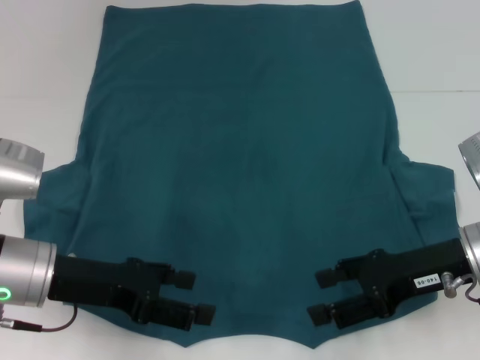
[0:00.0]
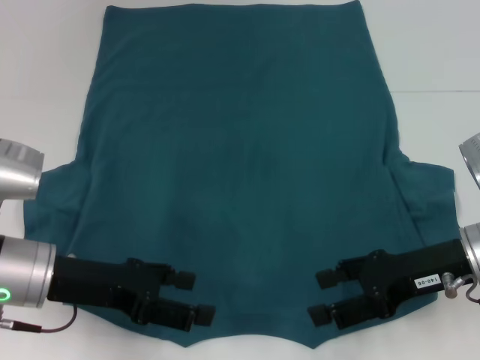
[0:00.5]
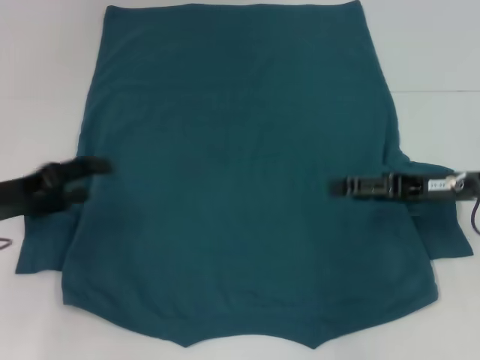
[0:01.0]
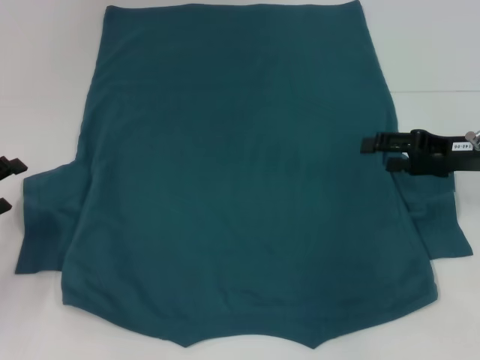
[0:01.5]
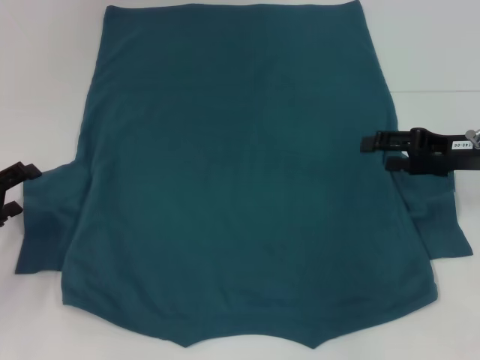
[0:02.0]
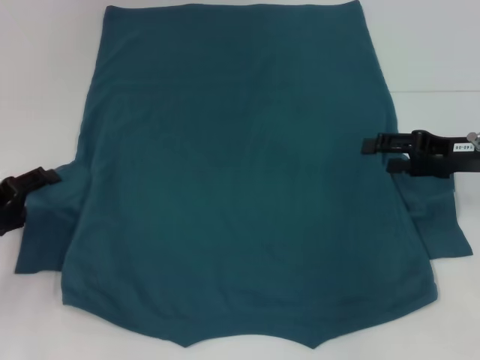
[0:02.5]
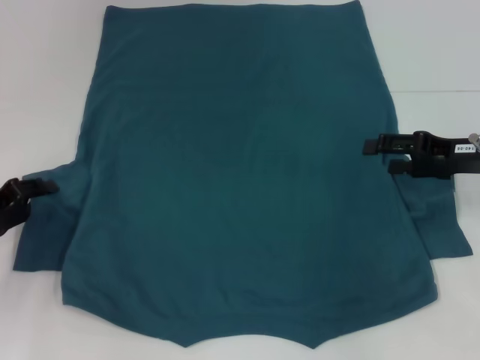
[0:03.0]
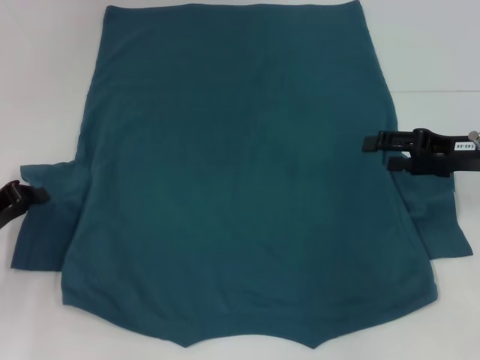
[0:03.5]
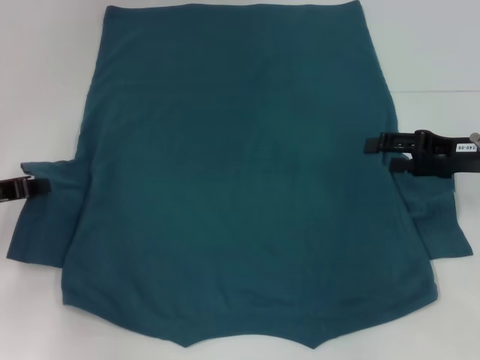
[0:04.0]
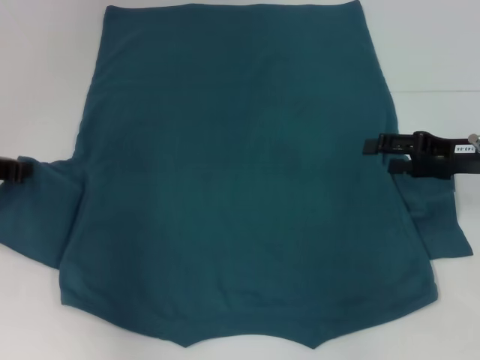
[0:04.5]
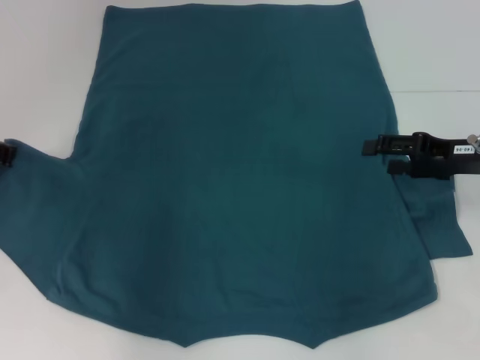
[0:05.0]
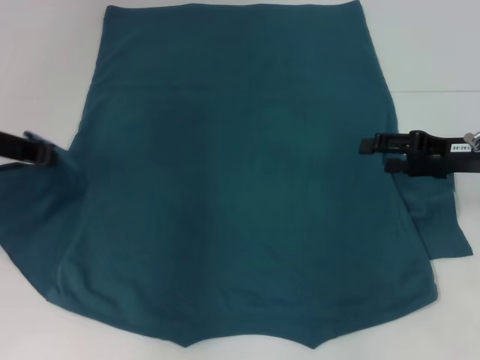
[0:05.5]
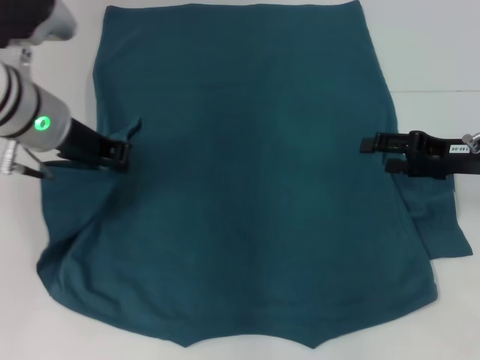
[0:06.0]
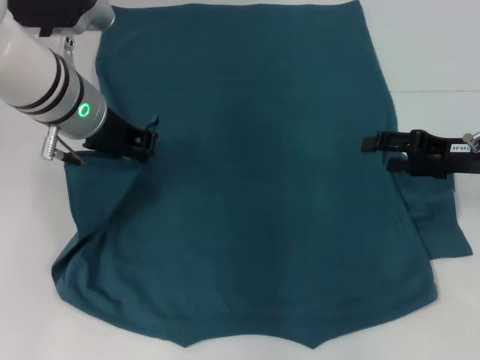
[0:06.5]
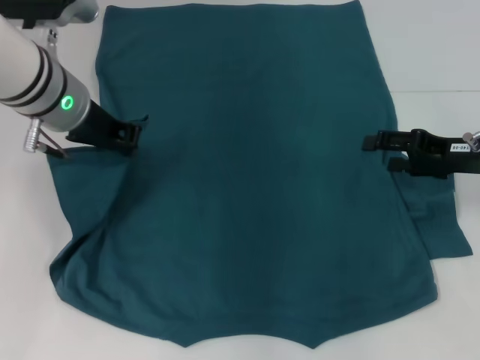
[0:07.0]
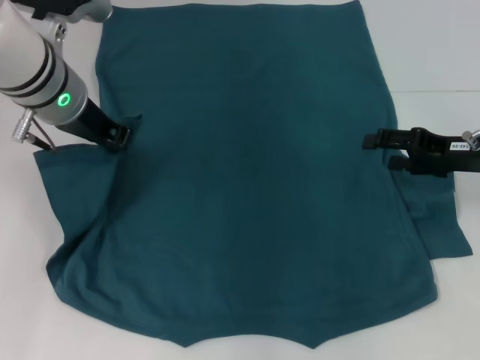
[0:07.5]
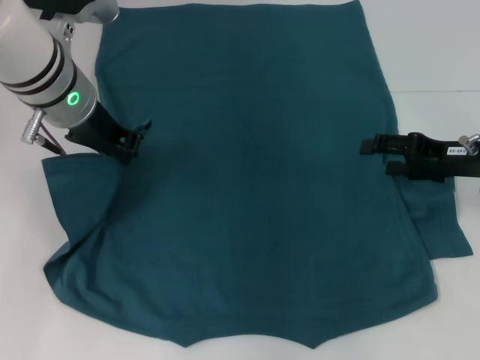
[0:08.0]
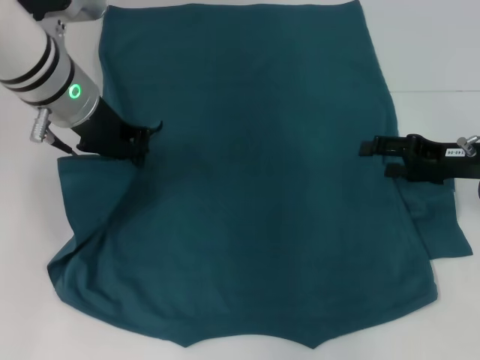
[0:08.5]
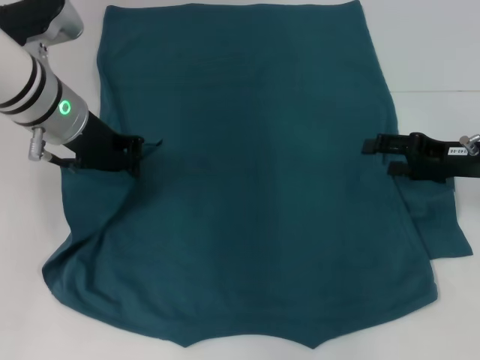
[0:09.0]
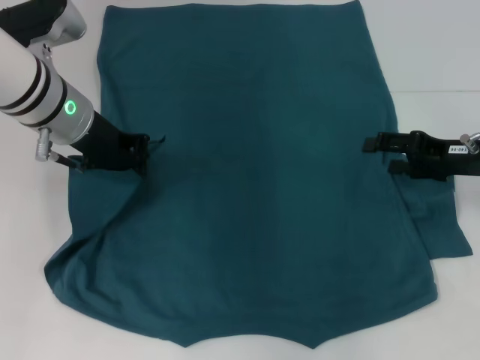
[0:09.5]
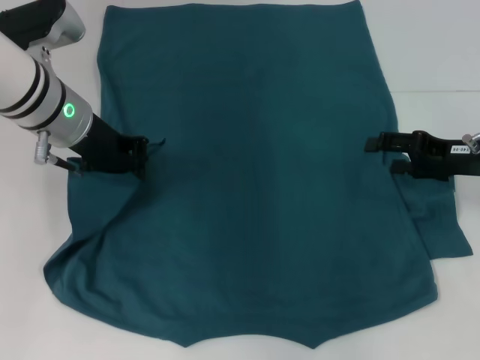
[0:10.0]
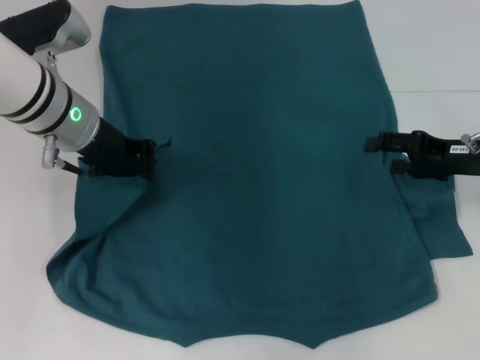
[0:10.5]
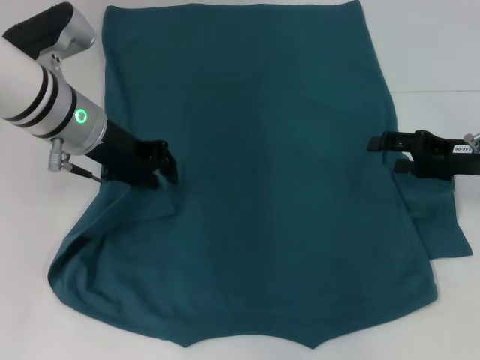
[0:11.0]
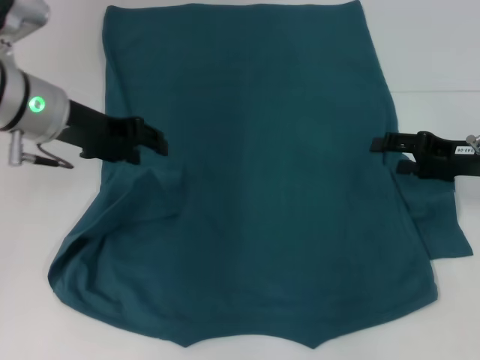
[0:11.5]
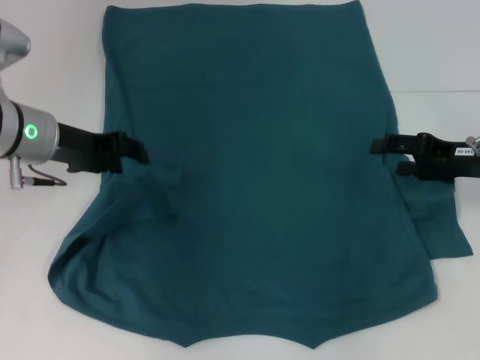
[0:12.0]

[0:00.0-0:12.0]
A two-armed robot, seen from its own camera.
0:00.0 to 0:02.0: The left gripper shifts some 15 cm to the left, while the right gripper is displaced forward and to the right by about 10 cm.
0:02.0 to 0:04.0: The left gripper changes place by some 5 cm, and closes its fingers.
0:04.0 to 0:06.0: The left gripper heads to the right, upward and forward, covering approximately 15 cm.
0:06.0 to 0:08.0: The grippers move only a little.
0:10.0 to 0:12.0: The left gripper moves approximately 5 cm, and opens its fingers.

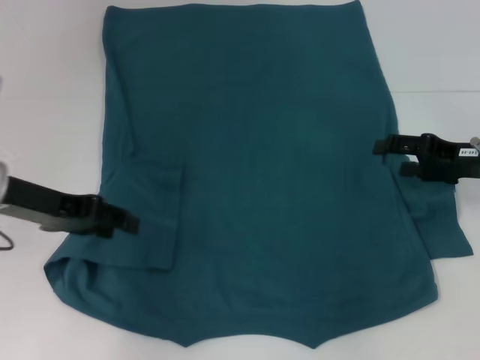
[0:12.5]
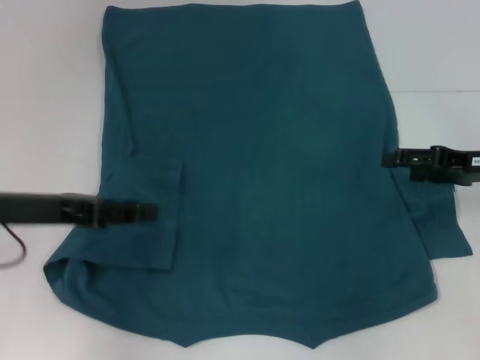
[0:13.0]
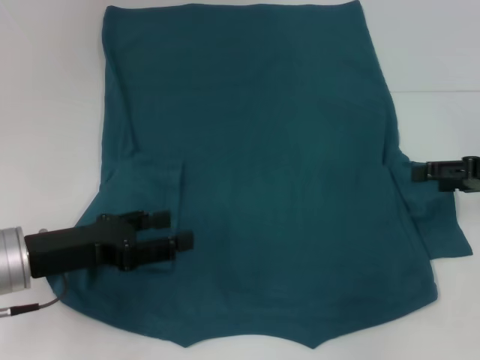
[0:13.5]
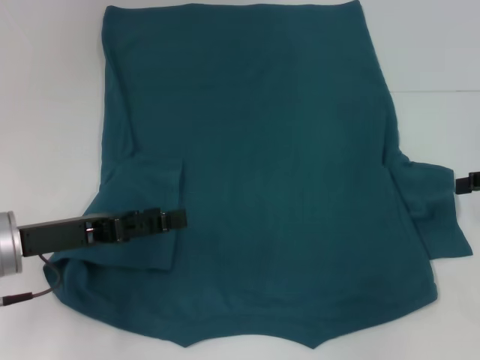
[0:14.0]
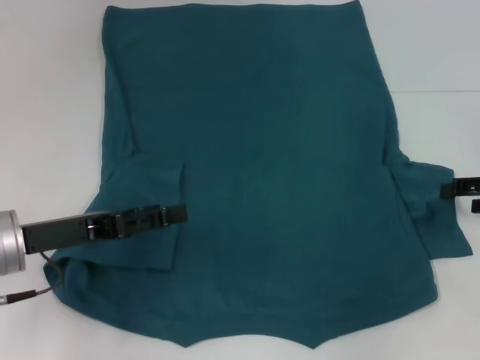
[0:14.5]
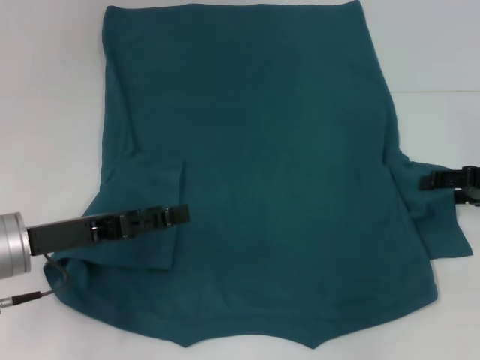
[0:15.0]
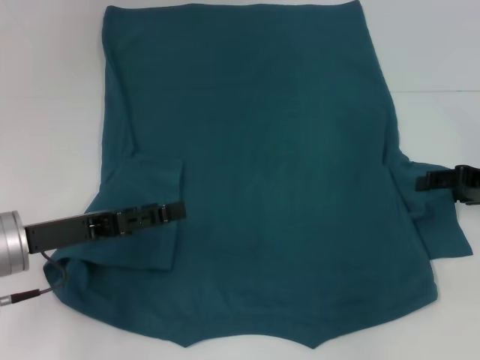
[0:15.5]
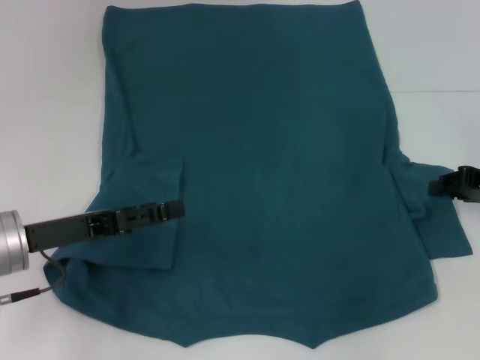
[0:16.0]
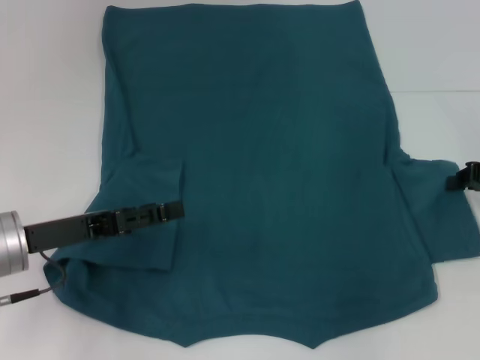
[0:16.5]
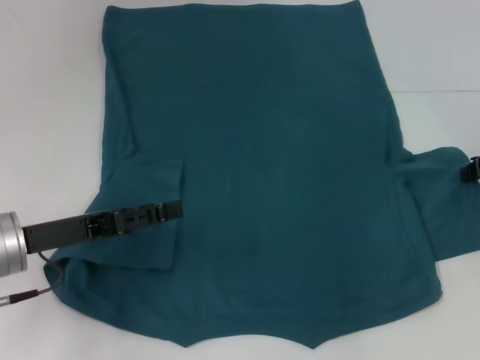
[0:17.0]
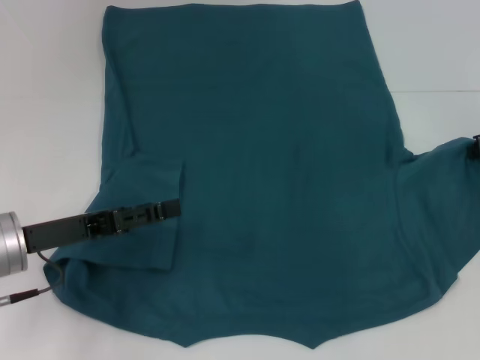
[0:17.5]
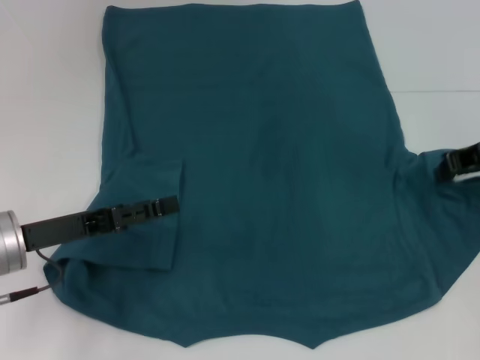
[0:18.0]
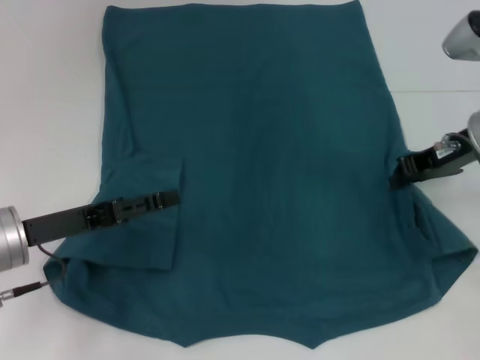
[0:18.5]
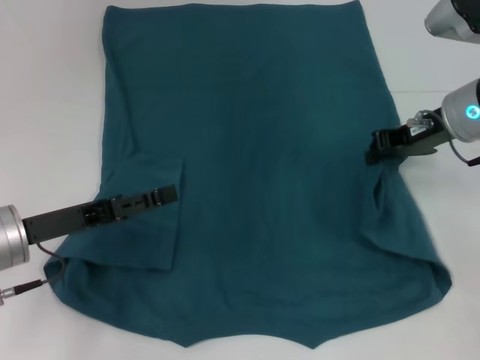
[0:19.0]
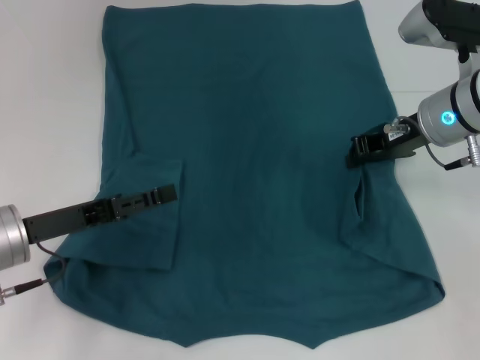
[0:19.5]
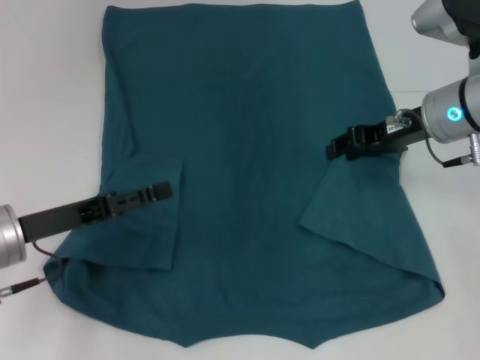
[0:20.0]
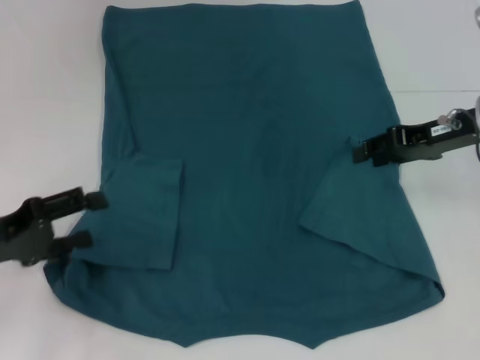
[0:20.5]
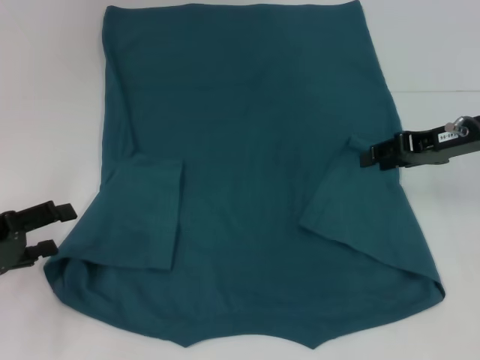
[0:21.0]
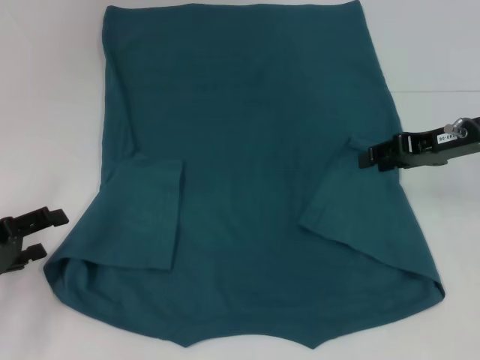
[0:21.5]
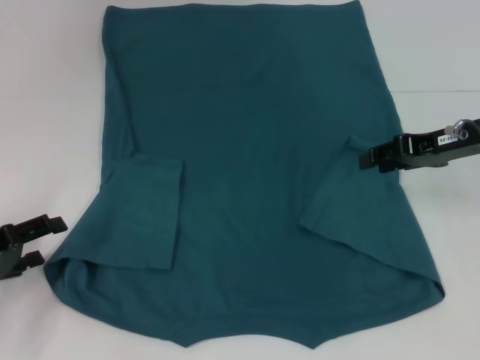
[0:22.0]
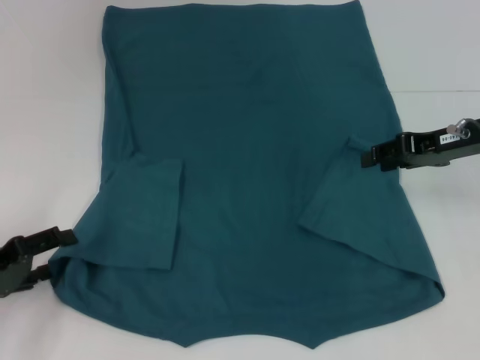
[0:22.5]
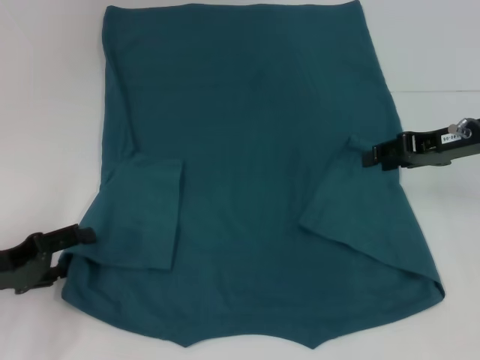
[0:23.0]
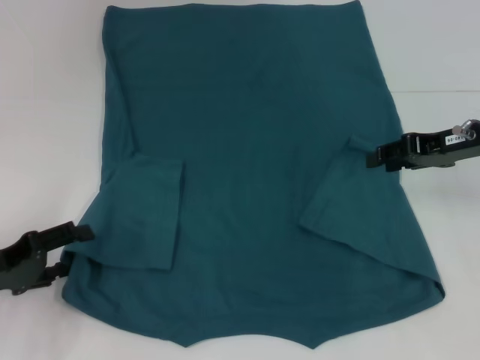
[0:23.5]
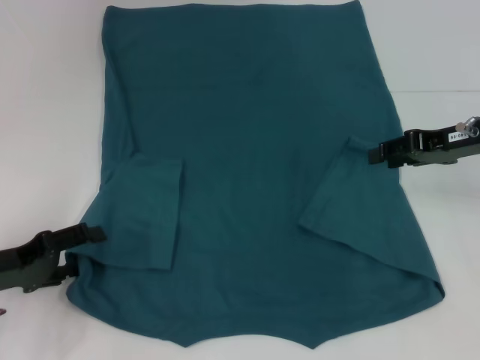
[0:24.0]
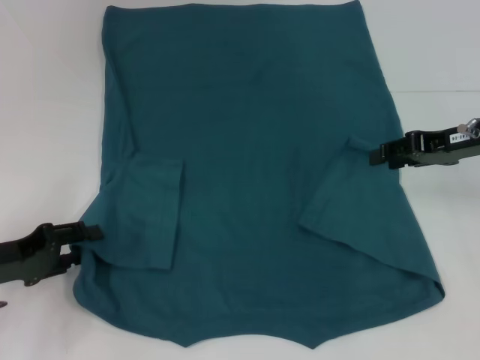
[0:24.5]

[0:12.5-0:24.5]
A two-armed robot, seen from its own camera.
Step, 0:13.0 to 0:20.0: Fold the bottom right sleeve to the right.
0:12.5 to 0:14.5: The right gripper goes approximately 5 cm to the right. The left gripper is displaced downward by approximately 5 cm, and opens up.
0:14.5 to 0:16.5: The right gripper closes.
0:16.5 to 0:18.5: The right gripper is displaced to the left by about 10 cm.
0:18.5 to 0:20.5: The right gripper opens its fingers, while the left gripper travels to the left by approximately 5 cm.
0:20.5 to 0:22.5: The left gripper moves approximately 5 cm.
0:22.5 to 0:24.5: The grippers stay close to where they were, moving slightly.

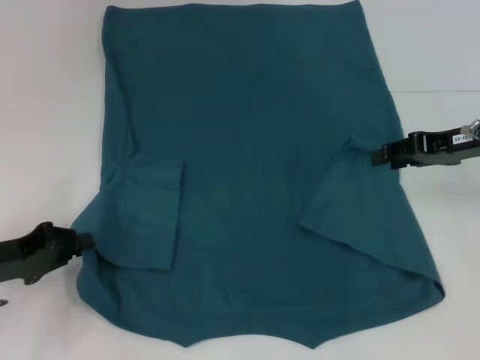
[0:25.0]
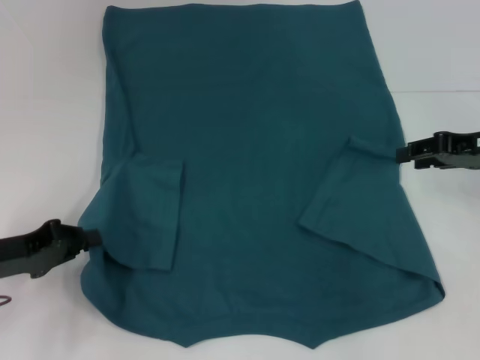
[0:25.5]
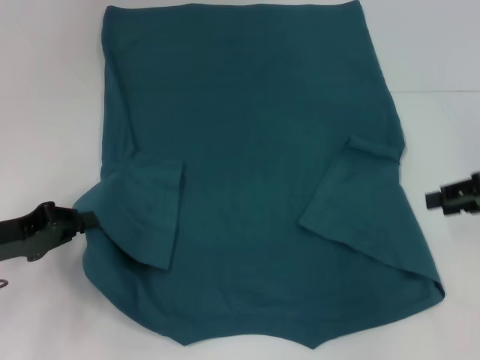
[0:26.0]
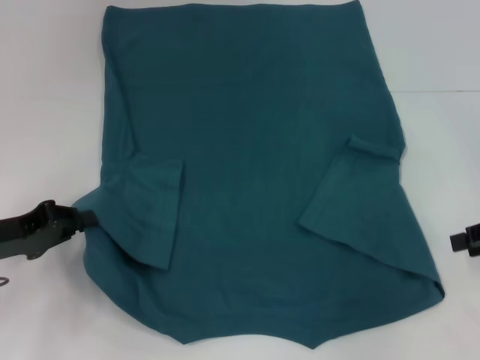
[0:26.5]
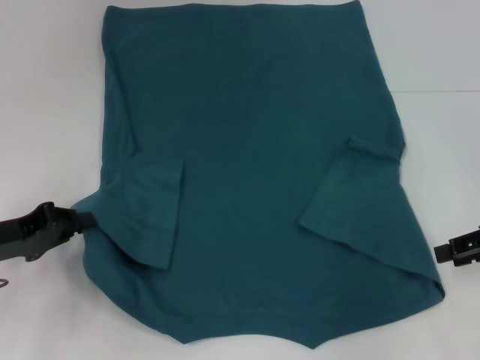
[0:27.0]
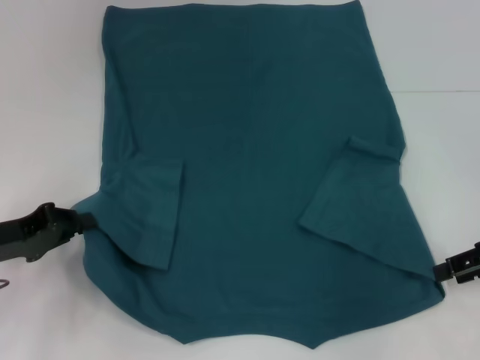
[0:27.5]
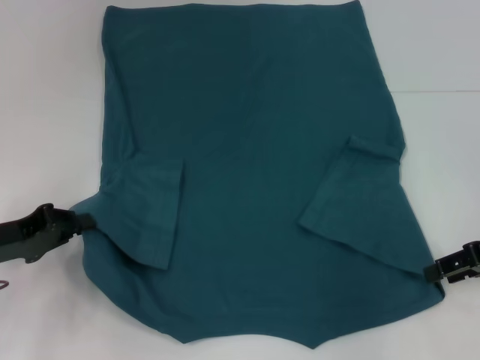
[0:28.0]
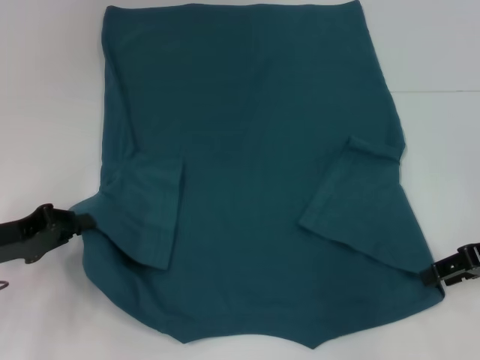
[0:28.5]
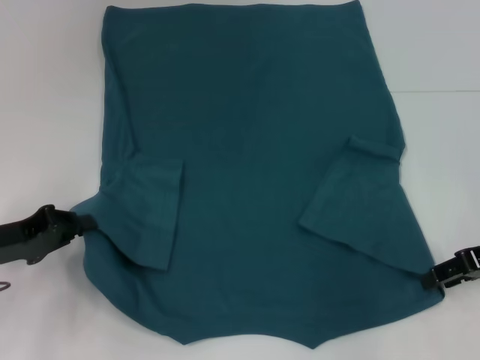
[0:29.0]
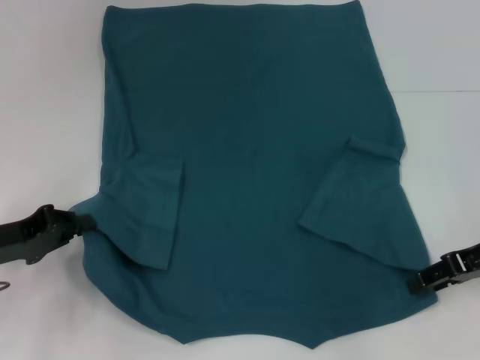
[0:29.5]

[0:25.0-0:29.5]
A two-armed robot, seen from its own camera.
0:25.0 to 0:27.0: The right gripper heads backward and to the right, covering some 10 cm.
0:27.0 to 0:29.5: The grippers stay close to where they were, moving slightly.
